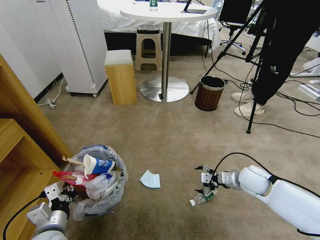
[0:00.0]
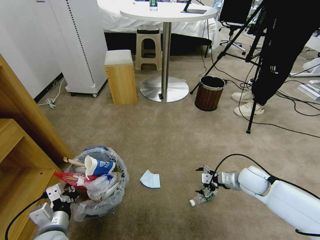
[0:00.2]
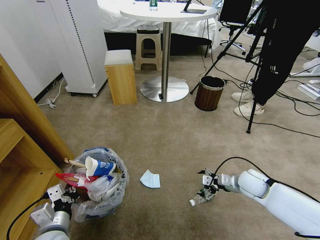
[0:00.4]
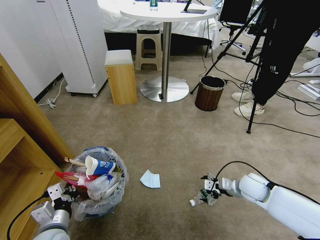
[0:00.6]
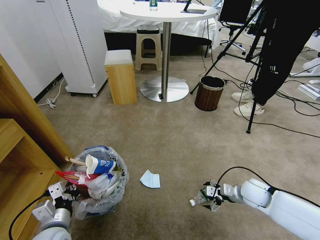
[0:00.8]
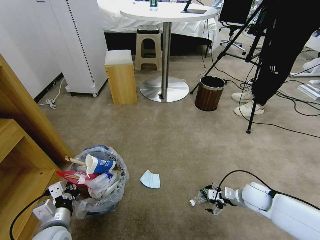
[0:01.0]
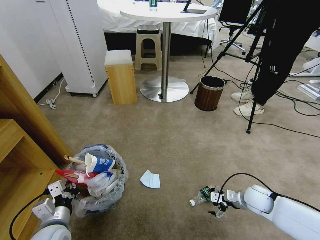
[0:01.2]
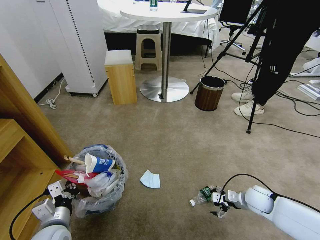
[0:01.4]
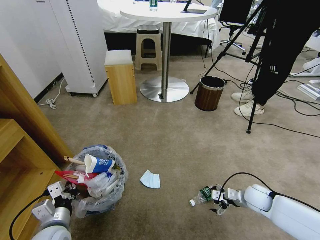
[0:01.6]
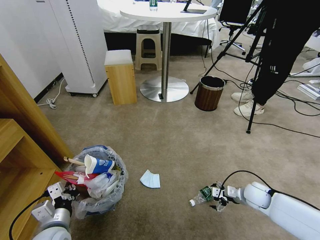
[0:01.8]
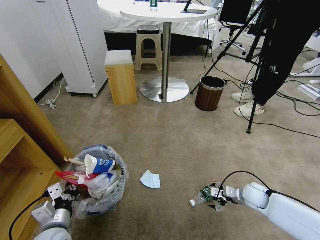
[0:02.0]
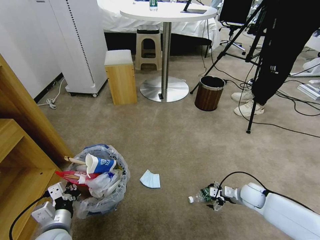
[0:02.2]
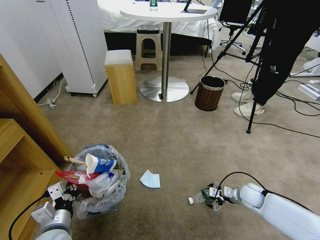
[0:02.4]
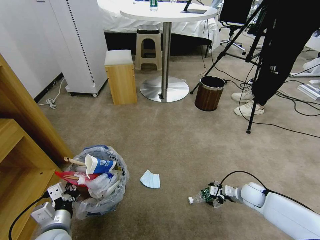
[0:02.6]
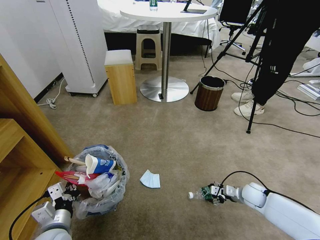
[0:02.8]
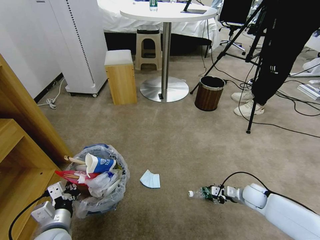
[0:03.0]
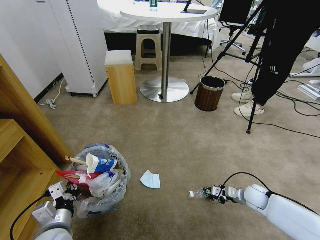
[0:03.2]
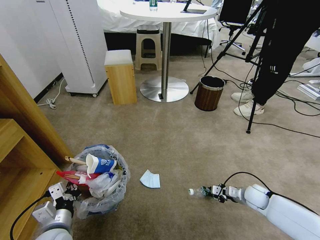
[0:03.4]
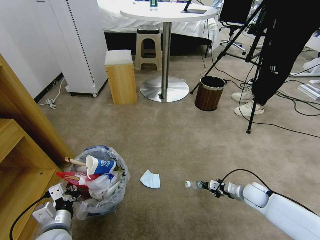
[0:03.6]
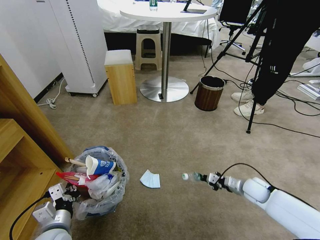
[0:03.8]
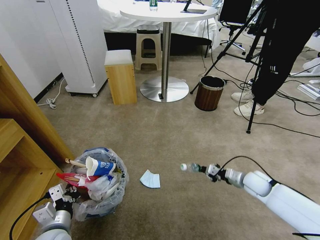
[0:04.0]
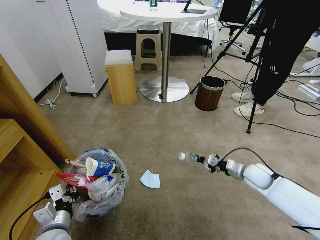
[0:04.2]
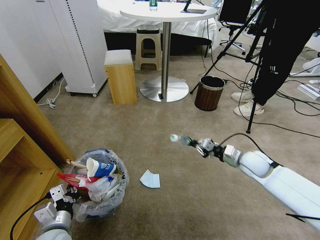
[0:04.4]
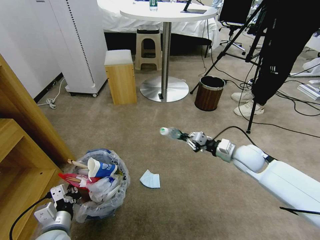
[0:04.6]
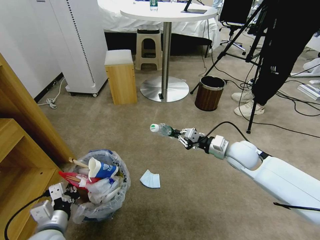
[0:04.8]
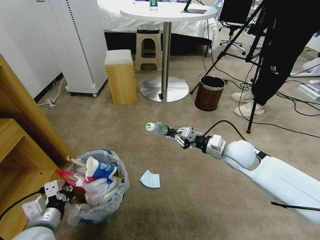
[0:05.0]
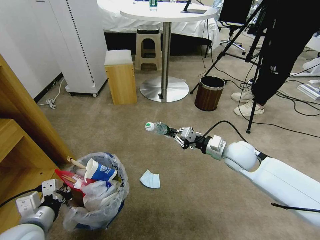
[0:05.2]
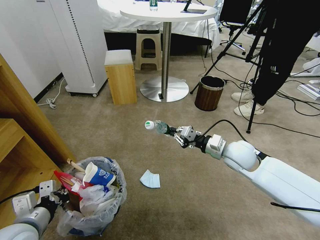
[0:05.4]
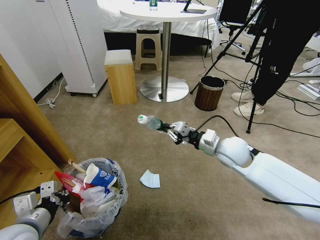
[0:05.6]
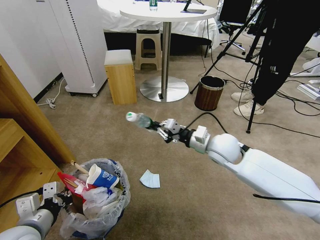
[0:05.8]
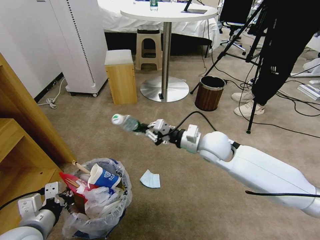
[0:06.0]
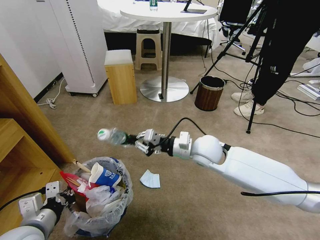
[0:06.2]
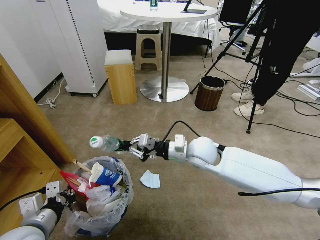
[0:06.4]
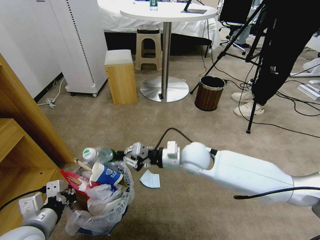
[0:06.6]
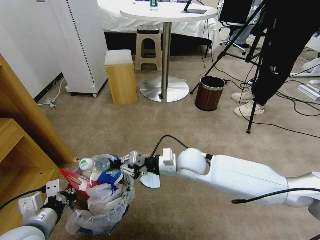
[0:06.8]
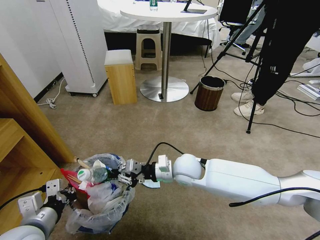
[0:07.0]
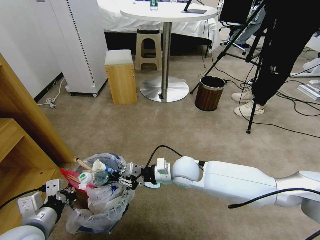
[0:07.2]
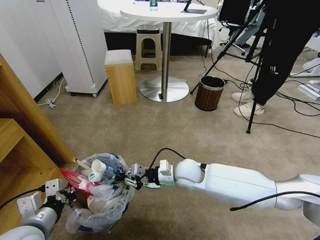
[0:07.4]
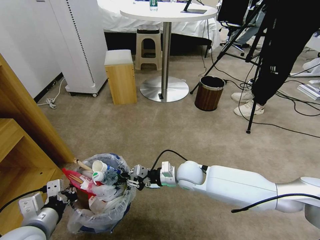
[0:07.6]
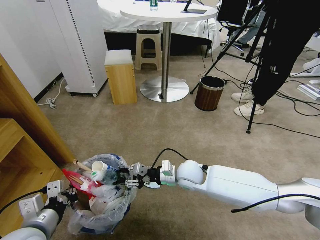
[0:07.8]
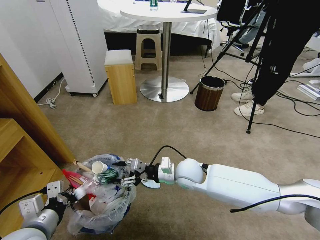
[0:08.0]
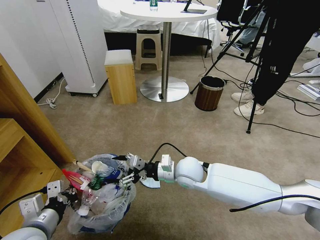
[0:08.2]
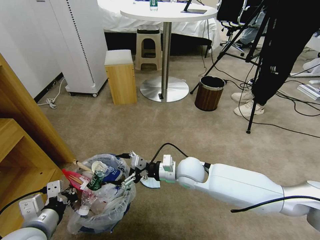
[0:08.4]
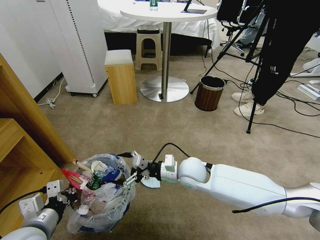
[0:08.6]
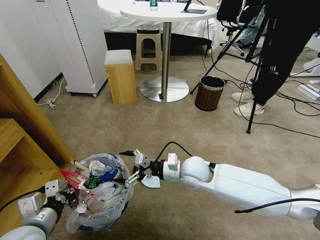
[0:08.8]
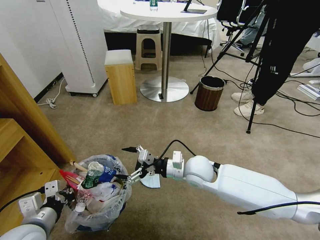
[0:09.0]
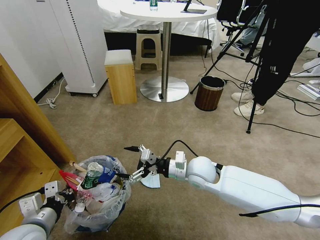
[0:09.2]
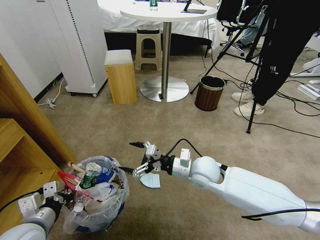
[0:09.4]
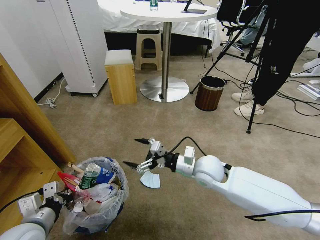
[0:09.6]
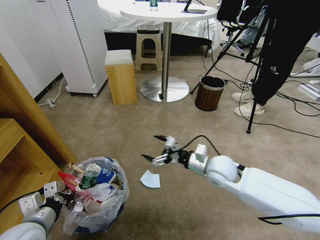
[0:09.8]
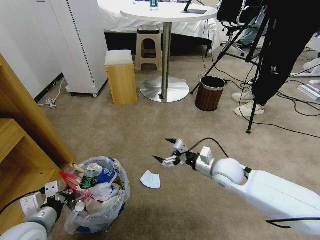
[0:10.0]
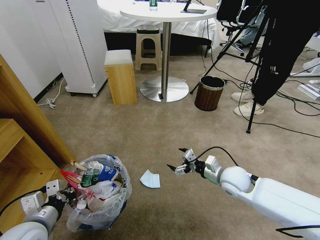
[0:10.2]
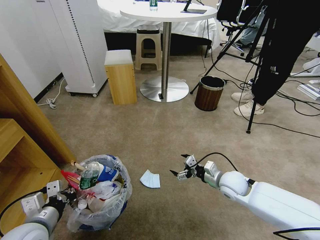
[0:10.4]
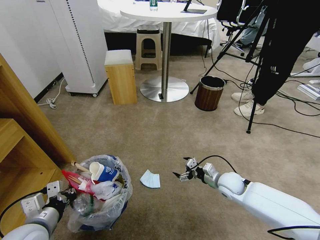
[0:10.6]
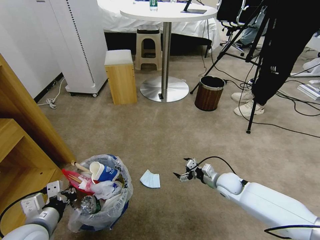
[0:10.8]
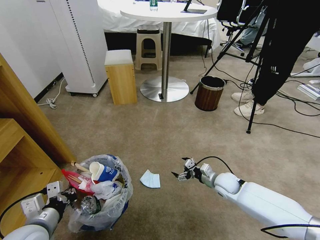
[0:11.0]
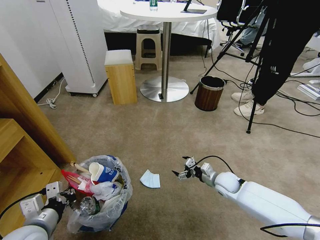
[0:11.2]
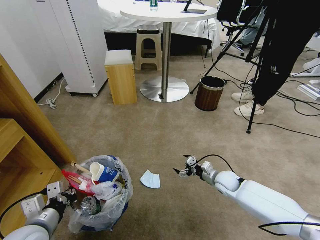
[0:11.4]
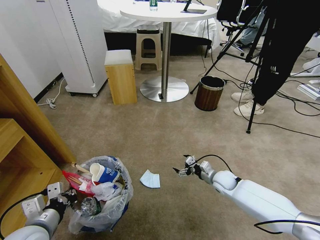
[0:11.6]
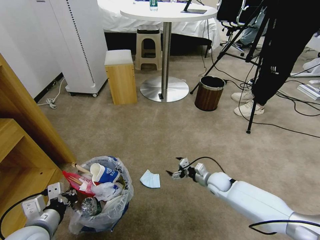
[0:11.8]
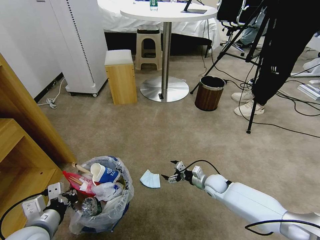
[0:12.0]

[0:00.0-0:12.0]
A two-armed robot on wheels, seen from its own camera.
Task of the whole recording: Pick up the trash bin and place the garbage on the floor into it.
0:00.0 to 0:01.6: The right gripper heads downward, covering some 10 cm.
0:01.6 to 0:03.0: The right gripper closes its fingers.
0:03.0 to 0:04.4: The right gripper is displaced upward by about 15 cm, and closes.
0:04.4 to 0:06.0: The left gripper travels upward by roughly 10 cm. The right gripper goes roughly 20 cm to the left and upward.
0:06.0 to 0:07.6: The right gripper is displaced downward and to the left by approximately 15 cm.
0:07.6 to 0:09.0: The right gripper heads upward, covering roughly 5 cm, and opens up.
0:09.0 to 0:10.4: The right gripper moves to the right and downward, some 15 cm.
0:10.4 to 0:12.0: The right gripper shifts approximately 10 cm downward.

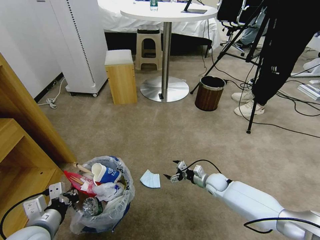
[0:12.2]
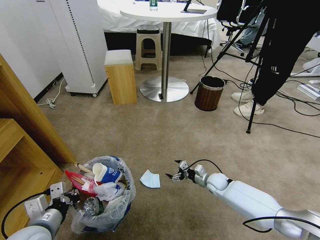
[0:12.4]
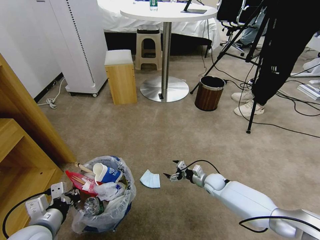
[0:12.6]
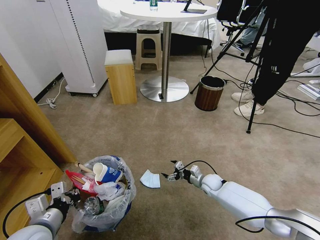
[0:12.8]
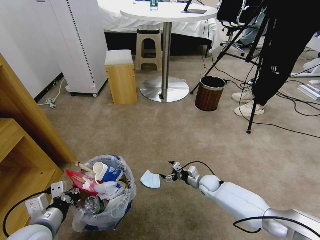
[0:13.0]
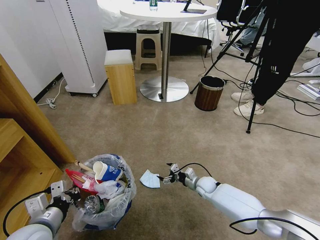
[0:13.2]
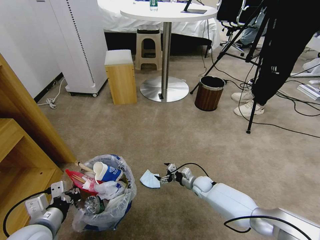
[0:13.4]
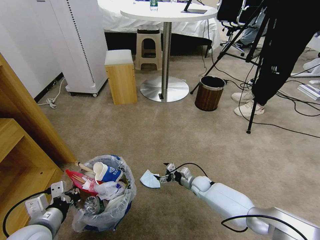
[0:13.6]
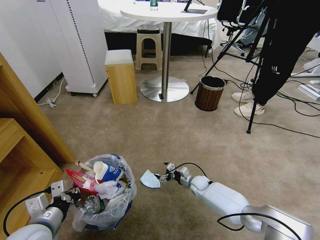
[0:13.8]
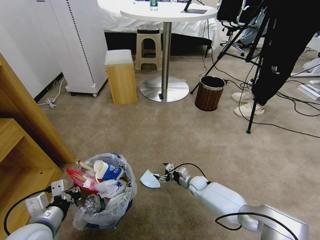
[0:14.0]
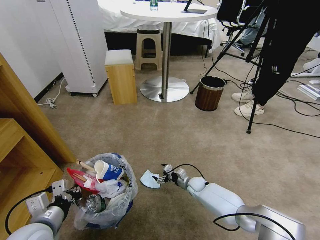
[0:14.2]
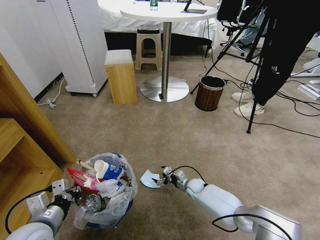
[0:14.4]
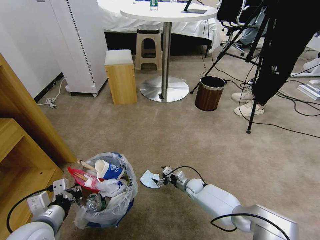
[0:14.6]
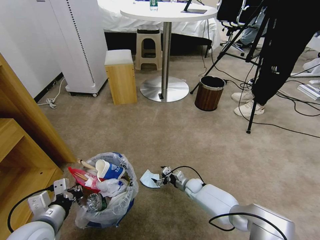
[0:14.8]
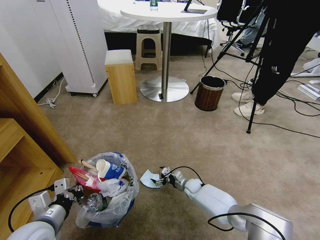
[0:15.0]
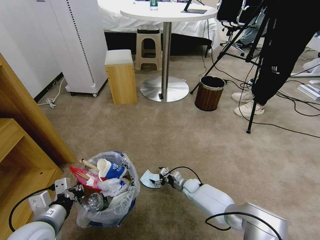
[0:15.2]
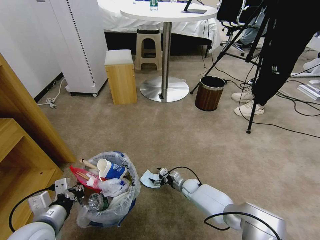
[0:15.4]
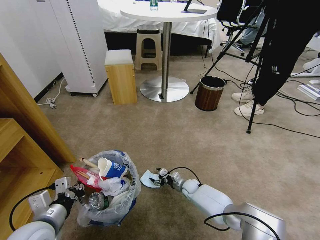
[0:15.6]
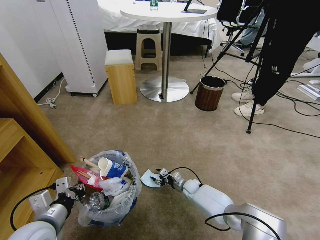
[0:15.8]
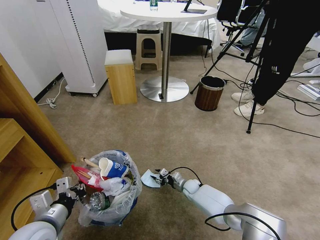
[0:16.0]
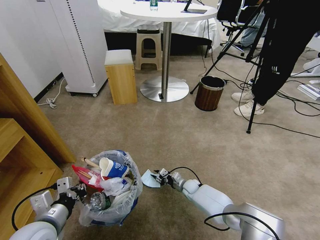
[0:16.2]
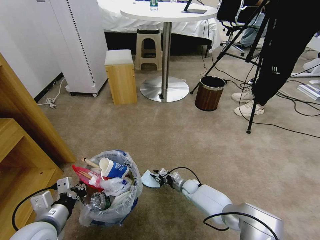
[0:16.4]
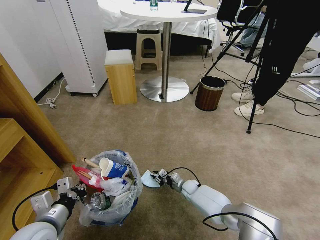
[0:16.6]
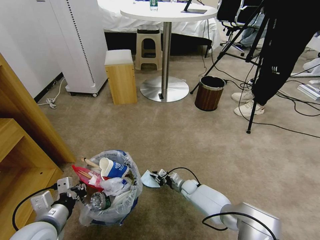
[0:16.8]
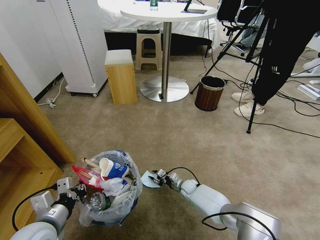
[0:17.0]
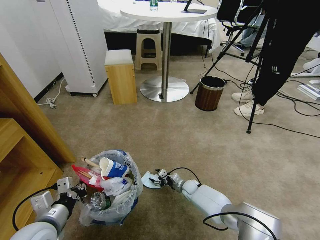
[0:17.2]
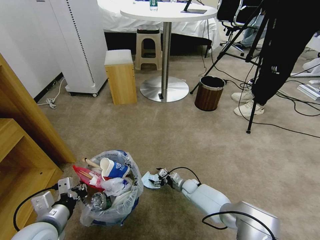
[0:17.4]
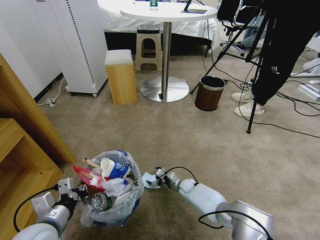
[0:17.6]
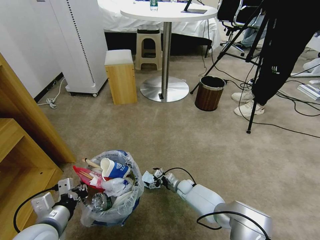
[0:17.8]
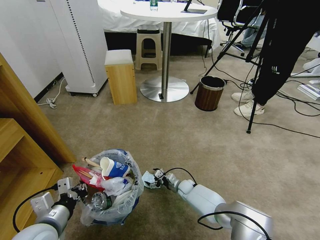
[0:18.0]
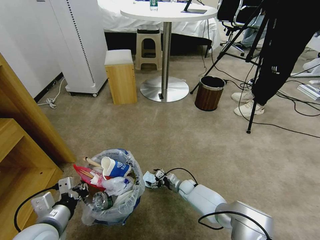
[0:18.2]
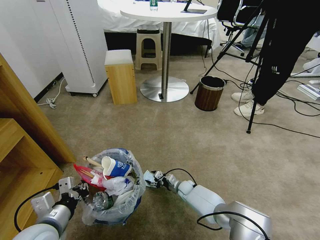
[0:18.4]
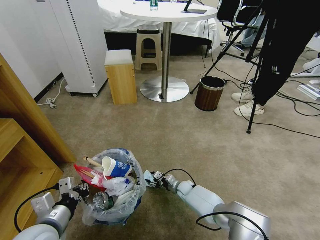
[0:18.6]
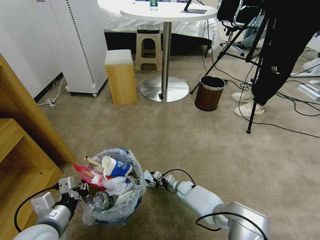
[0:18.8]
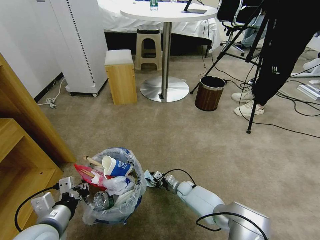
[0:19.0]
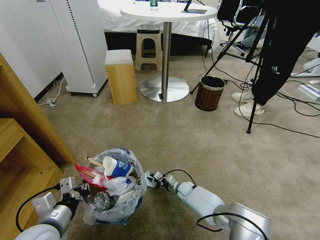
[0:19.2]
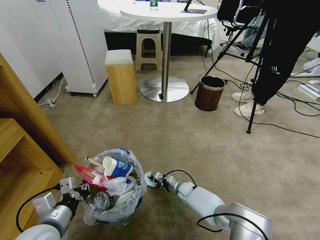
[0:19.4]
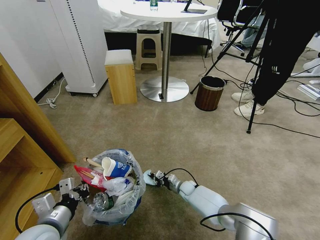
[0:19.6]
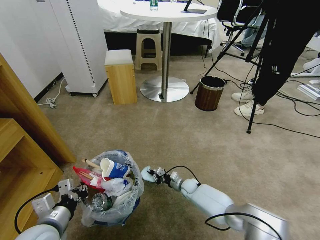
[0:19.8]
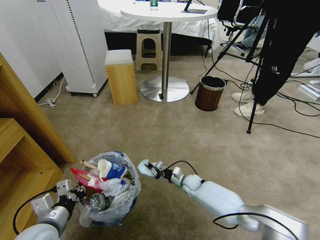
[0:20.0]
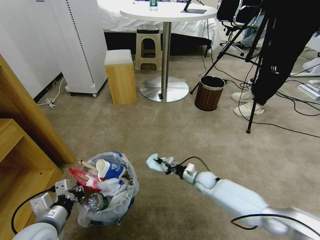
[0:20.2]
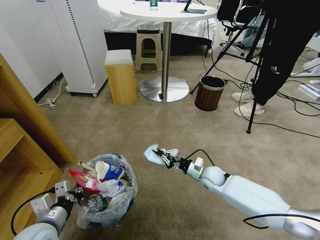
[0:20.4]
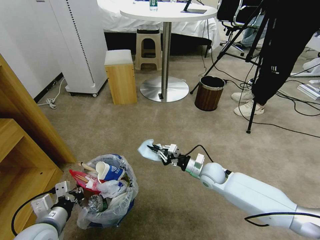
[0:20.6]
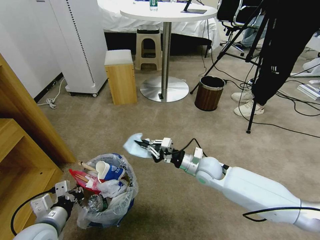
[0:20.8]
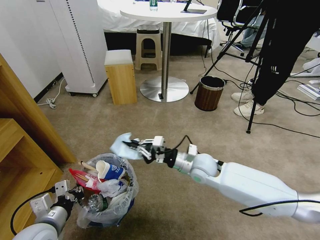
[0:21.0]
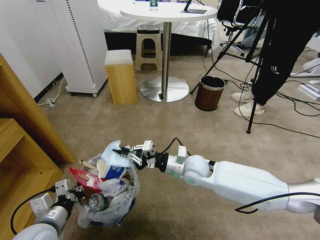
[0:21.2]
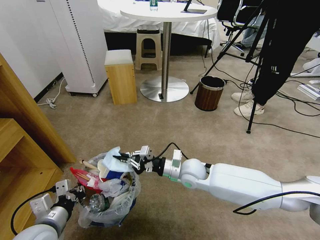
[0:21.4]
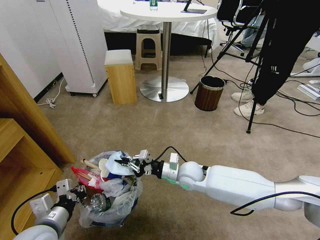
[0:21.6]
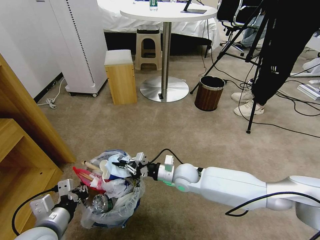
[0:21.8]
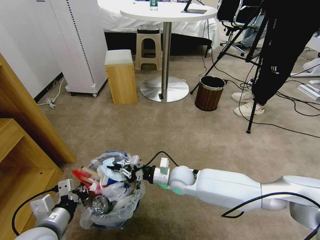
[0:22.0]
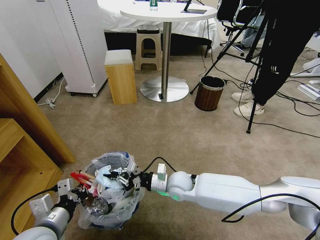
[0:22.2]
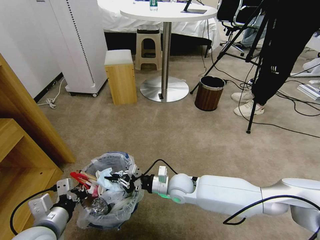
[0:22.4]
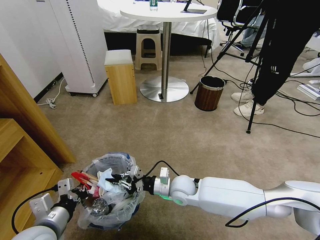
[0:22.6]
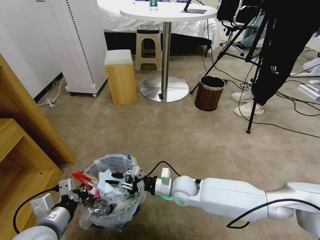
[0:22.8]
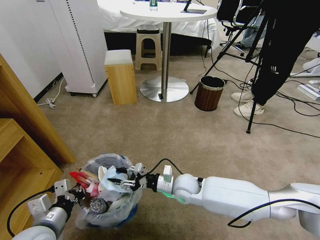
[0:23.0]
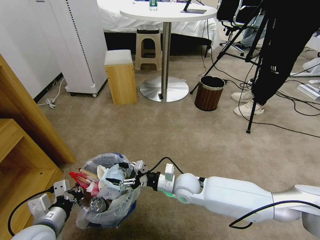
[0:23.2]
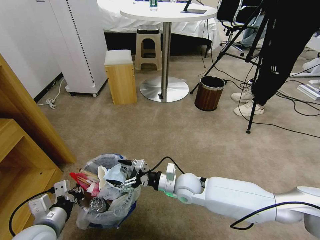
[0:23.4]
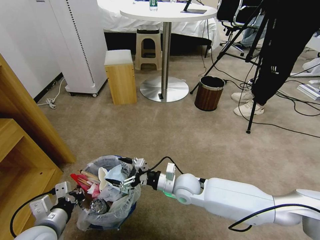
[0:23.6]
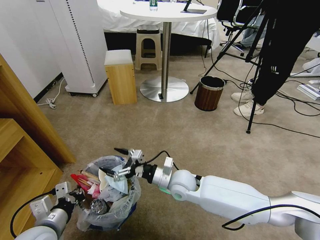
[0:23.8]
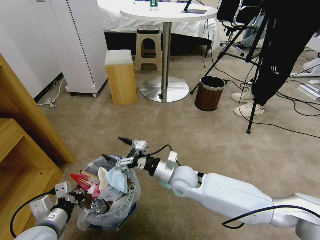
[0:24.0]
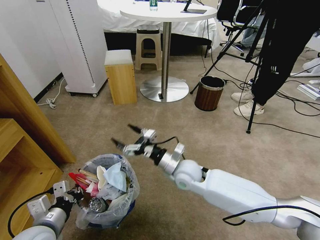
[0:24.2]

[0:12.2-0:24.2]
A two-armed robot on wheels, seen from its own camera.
Task of the whole recording: Pick up the trash bin and place the garbage on the floor into it.
0:12.2 to 0:13.8: The right gripper goes approximately 10 cm downward and to the left.
0:13.8 to 0:15.2: The grippers make only small movements.
0:15.2 to 0:16.6: The right gripper closes.
0:16.6 to 0:18.2: The right gripper opens.
0:18.2 to 0:19.8: The right gripper closes up.
0:19.8 to 0:21.2: The right gripper shifts approximately 30 cm upward.
0:21.2 to 0:22.6: The right gripper moves downward, approximately 10 cm.
0:22.6 to 0:24.2: The right gripper shifts some 5 cm upward, and opens its fingers.
